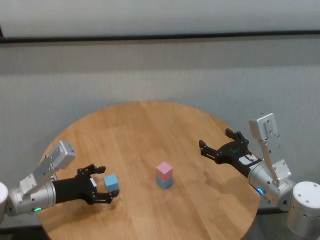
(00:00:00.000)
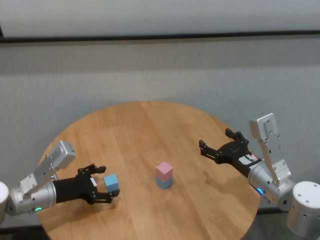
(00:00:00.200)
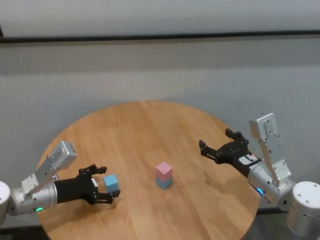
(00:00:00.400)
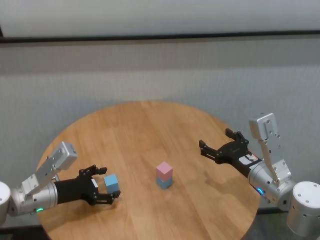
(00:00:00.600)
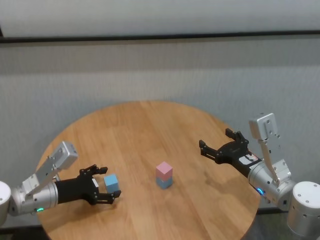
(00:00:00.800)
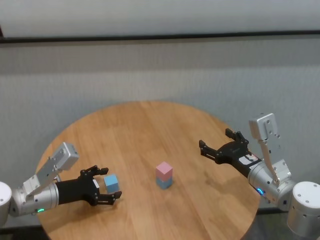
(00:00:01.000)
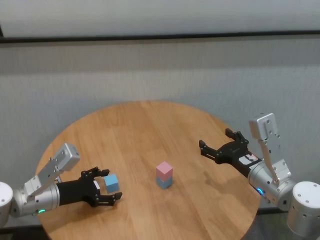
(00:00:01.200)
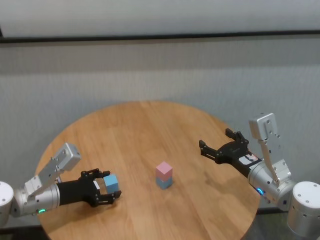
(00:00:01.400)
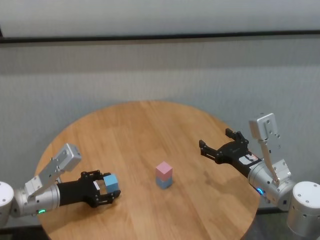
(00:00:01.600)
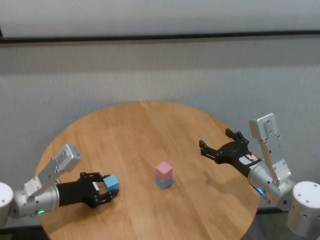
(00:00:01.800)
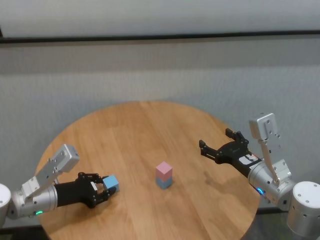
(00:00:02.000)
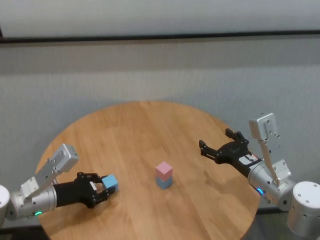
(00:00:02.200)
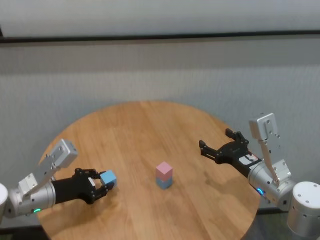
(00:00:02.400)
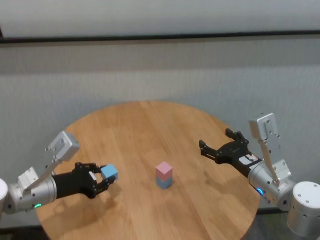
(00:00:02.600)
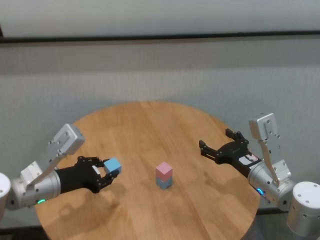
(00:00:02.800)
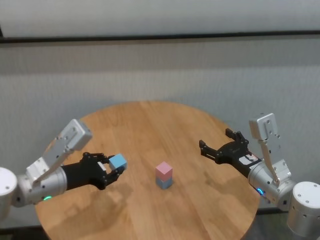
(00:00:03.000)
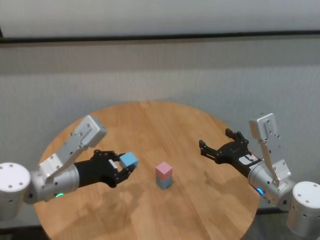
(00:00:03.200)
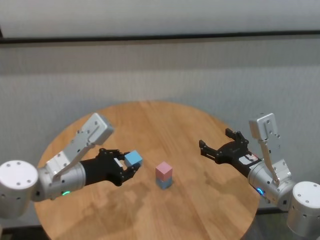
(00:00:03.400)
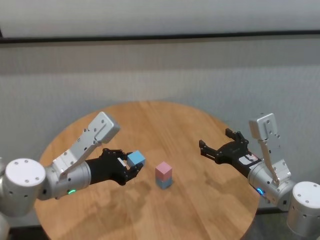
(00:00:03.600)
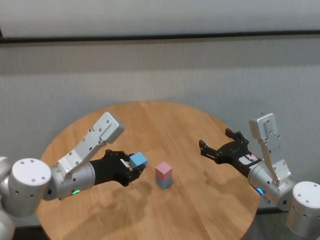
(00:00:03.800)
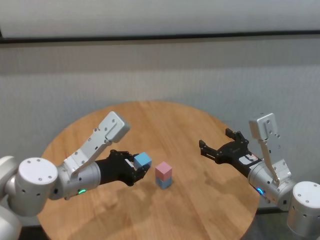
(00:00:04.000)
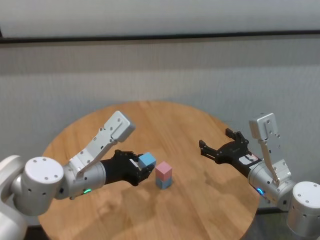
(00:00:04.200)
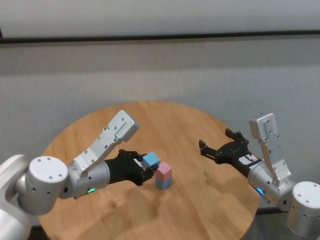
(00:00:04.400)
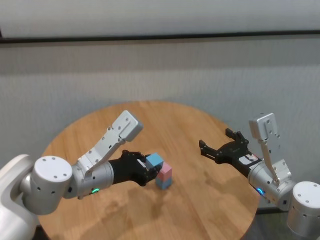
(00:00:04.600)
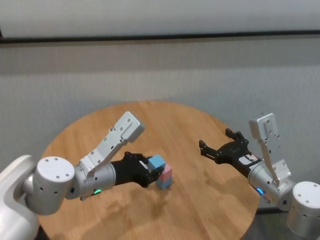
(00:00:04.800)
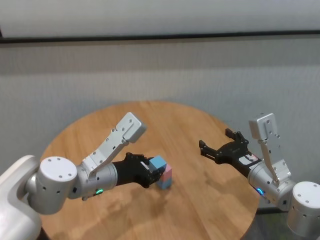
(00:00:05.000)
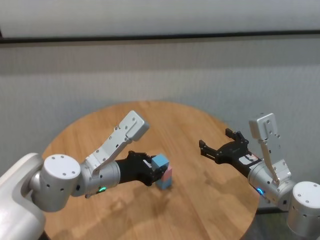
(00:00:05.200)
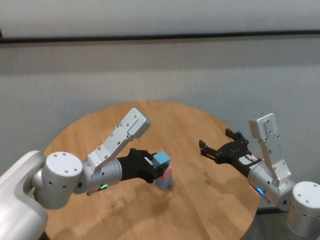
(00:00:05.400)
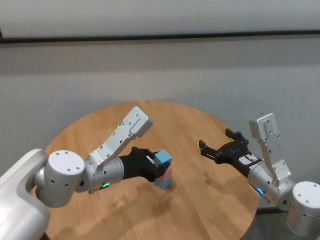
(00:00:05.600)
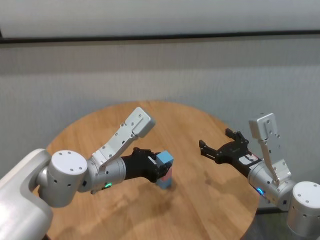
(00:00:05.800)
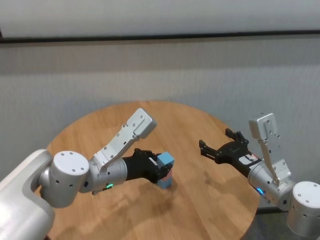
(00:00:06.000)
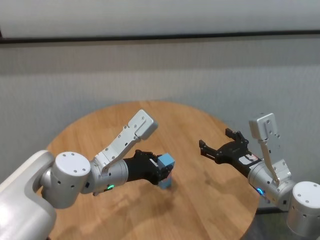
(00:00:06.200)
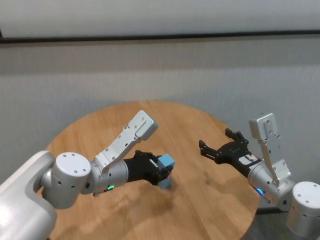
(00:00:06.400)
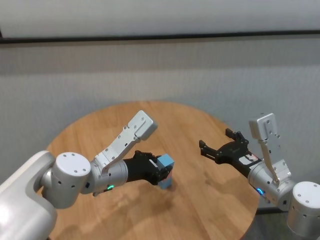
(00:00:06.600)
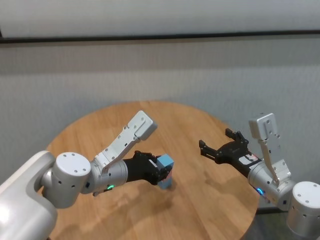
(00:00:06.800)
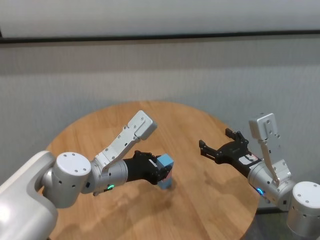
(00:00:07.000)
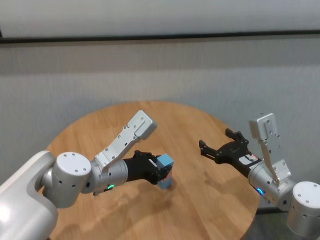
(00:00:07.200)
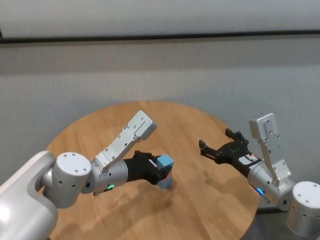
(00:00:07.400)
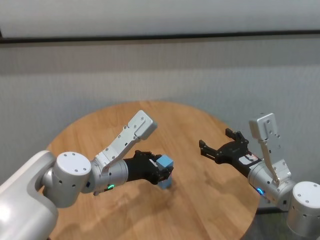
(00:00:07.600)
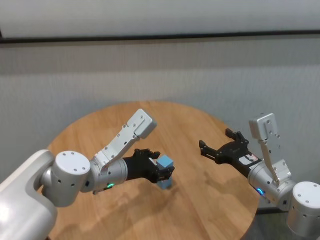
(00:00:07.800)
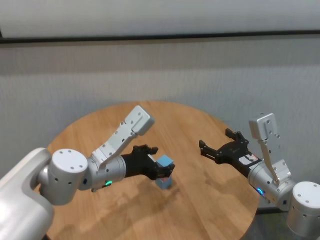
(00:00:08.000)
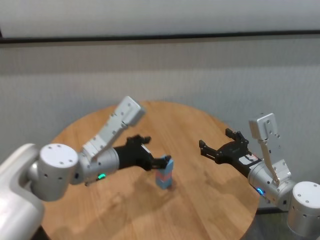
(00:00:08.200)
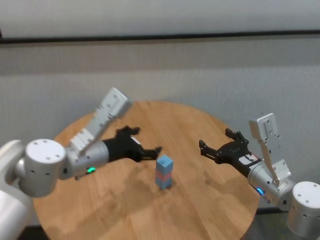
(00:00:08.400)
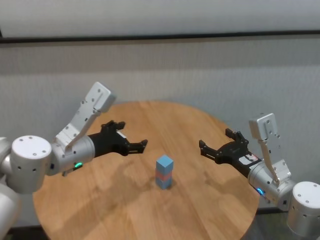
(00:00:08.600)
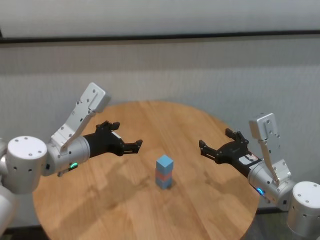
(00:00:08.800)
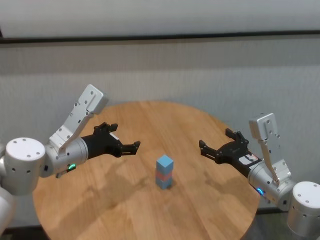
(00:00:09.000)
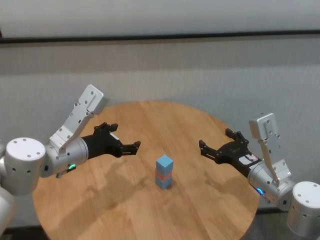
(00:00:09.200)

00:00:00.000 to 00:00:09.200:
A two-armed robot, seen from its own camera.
Task of the whole recording: stack building blocks on the table.
Step, 00:00:00.000 to 00:00:07.600: Place the blue building block on the pink building blocks with left gripper.
